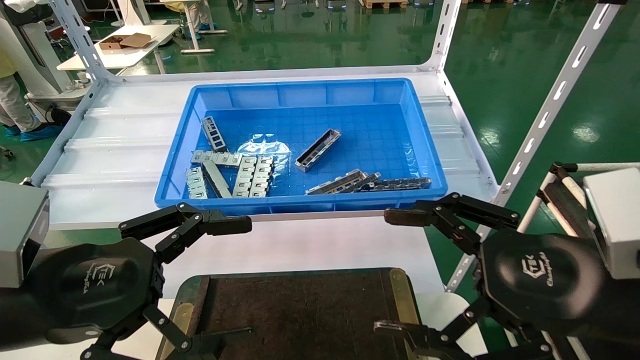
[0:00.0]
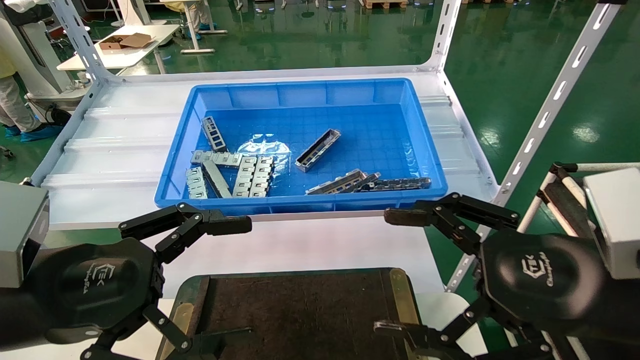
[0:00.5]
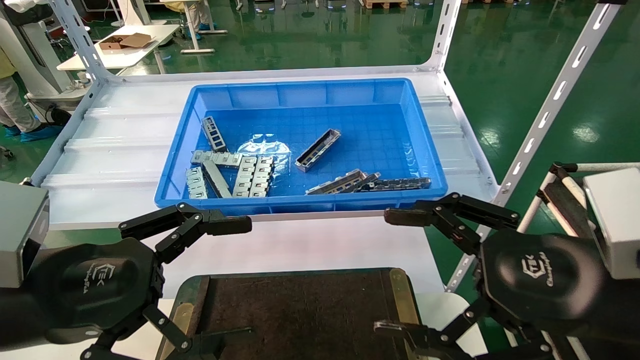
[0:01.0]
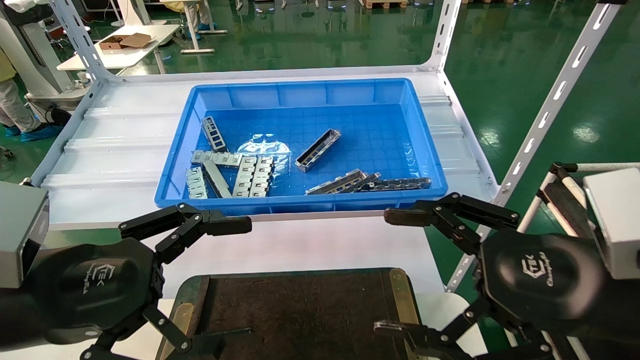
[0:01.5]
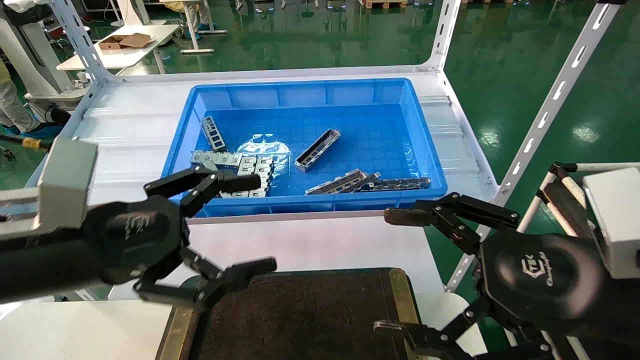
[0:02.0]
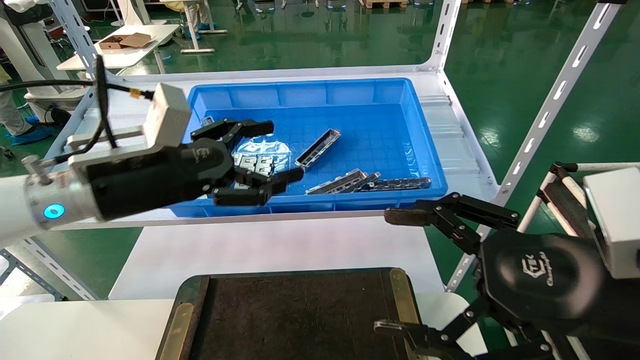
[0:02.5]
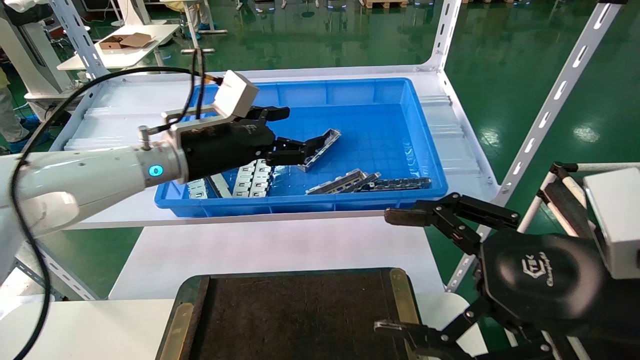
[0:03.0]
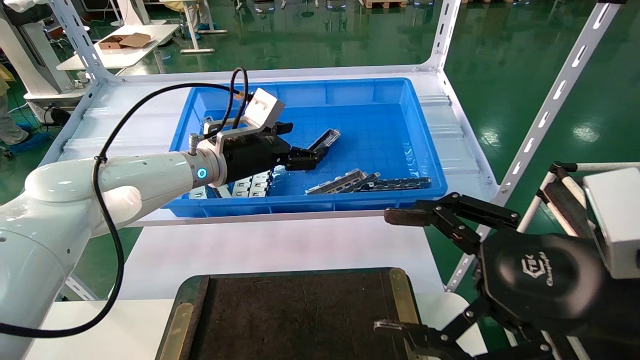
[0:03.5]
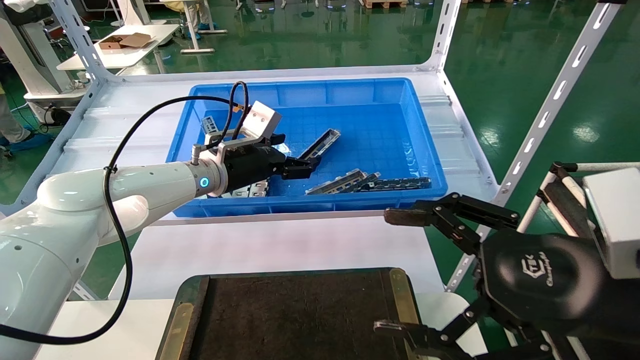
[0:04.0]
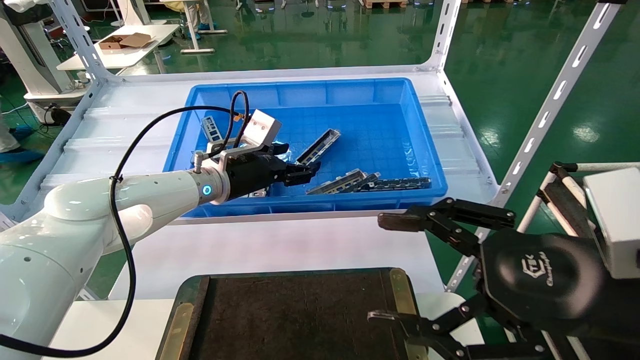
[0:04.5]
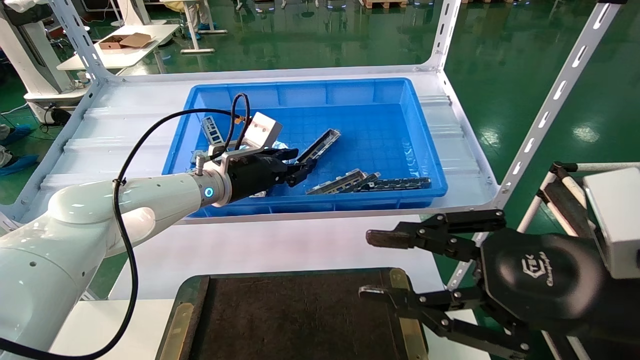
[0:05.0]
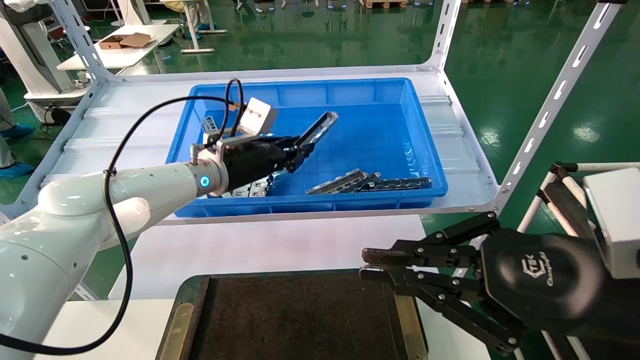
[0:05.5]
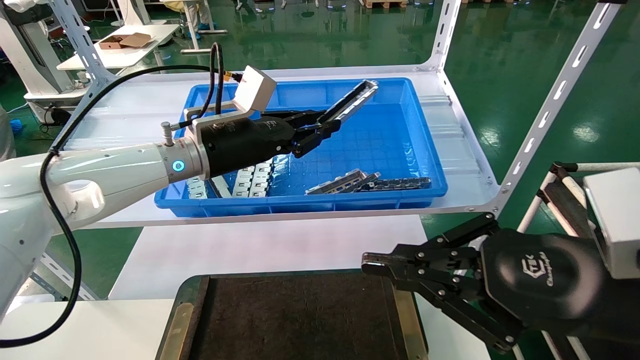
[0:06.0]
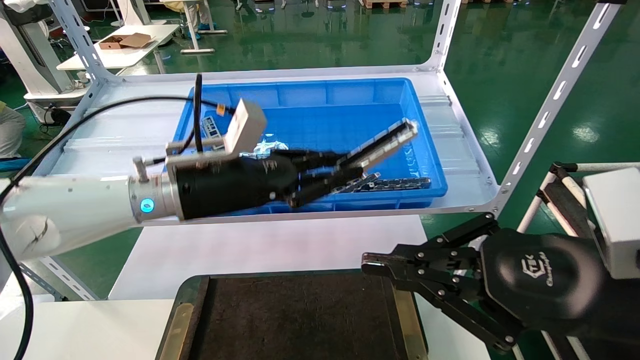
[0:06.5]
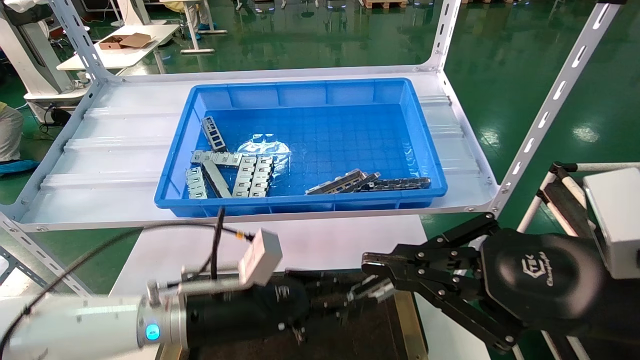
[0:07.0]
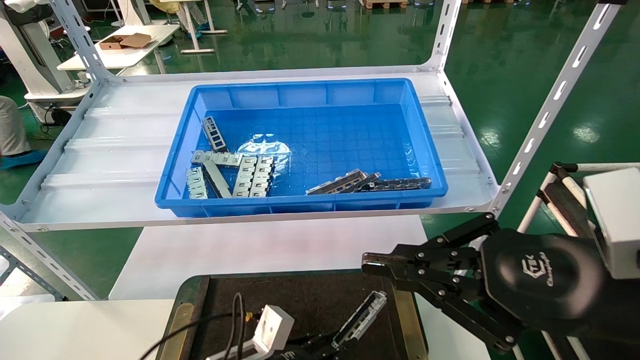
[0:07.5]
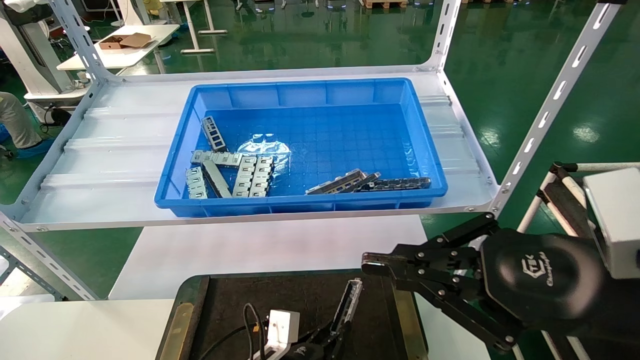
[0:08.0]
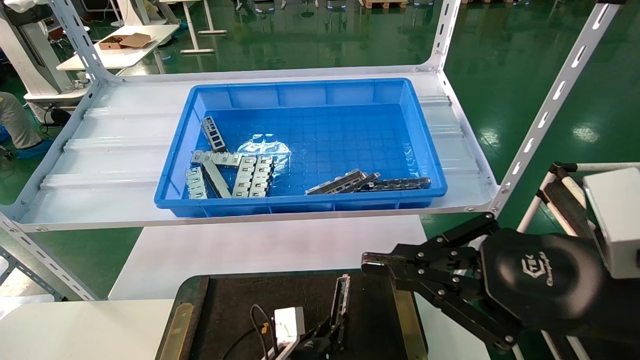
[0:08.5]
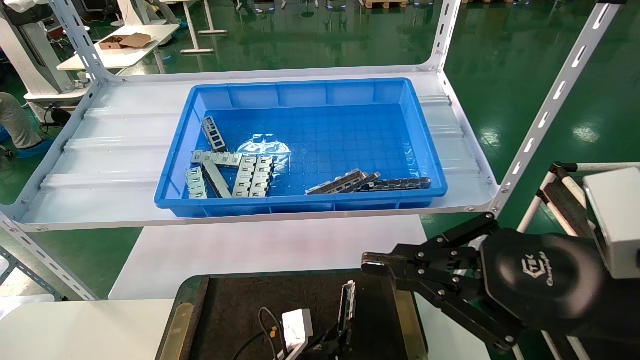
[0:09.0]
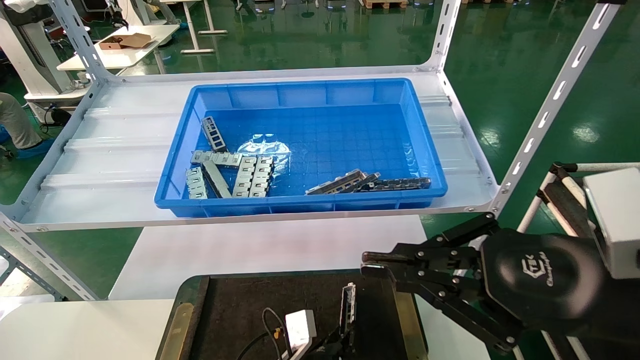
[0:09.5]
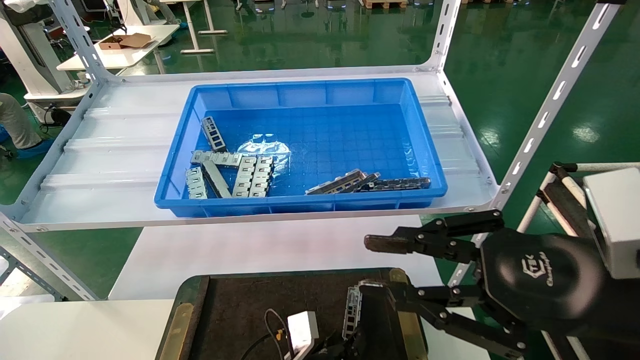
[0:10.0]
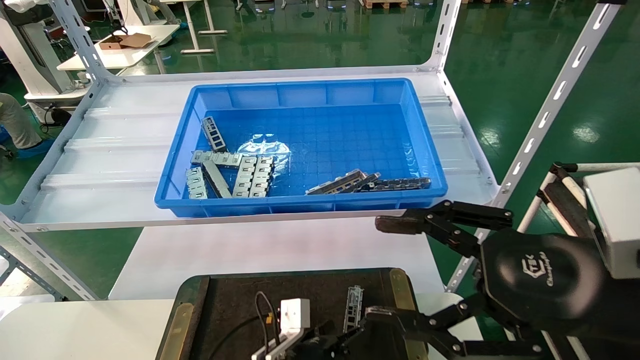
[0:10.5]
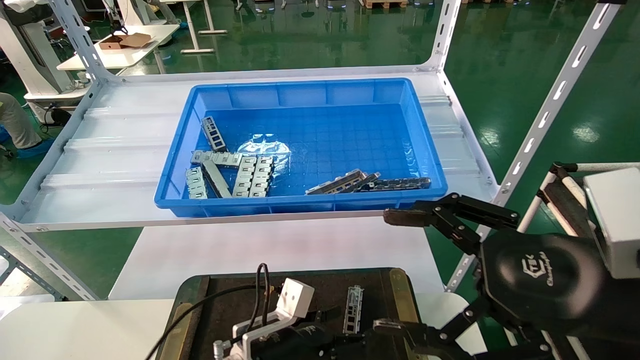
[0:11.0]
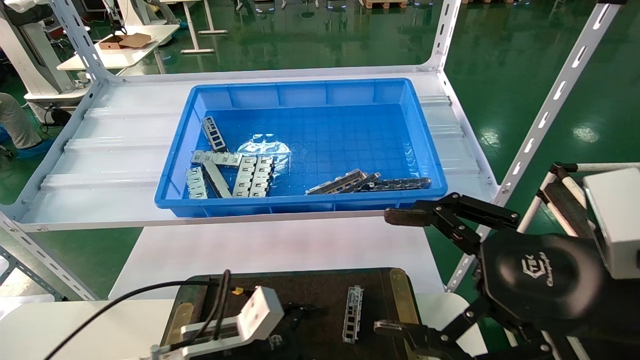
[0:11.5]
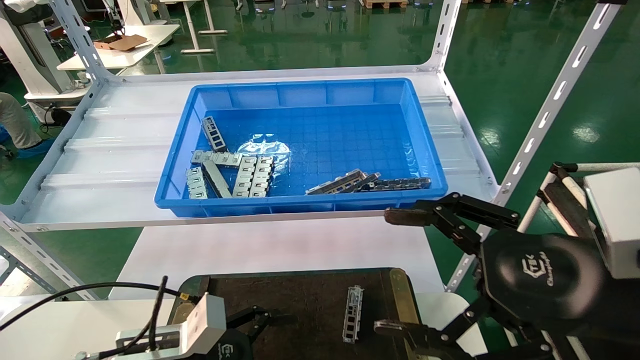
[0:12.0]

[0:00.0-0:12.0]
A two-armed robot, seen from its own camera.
Task of the whole recording: Grasp the part with one hand and place it on the black container.
Step, 0:02.5 to 0:06.0: Pick up the front USB bracket from the feeding area.
Step, 0:06.5 to 0:10.0: Place the front USB bracket into the box.
0:00.0 to 0:02.0: The left gripper ends up about 5 cm from where it was.
0:02.0 to 0:04.0: The left gripper travels forward by roughly 25 cm.
0:04.0 to 0:06.0: The left gripper shifts by approximately 5 cm, and closes. The right gripper closes.
0:06.0 to 0:08.0: The left gripper shifts some 35 cm downward.
0:08.0 to 0:10.0: The left gripper heads to the right, covering roughly 5 cm.
0:10.0 to 0:12.0: The right gripper opens; the left gripper is displaced to the left and upward by roughly 25 cm, and opens up.
